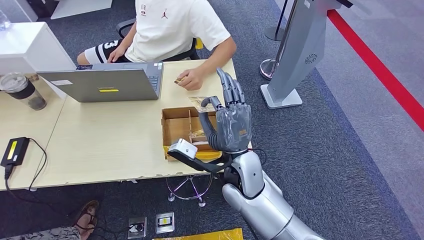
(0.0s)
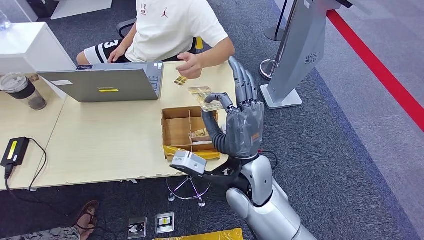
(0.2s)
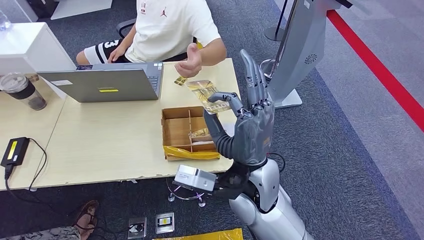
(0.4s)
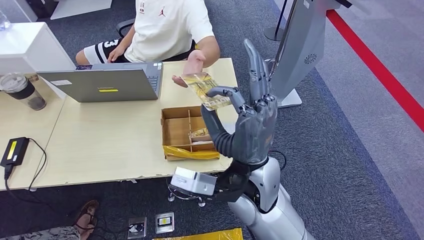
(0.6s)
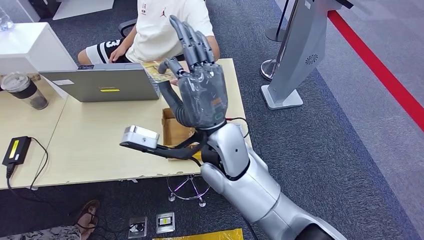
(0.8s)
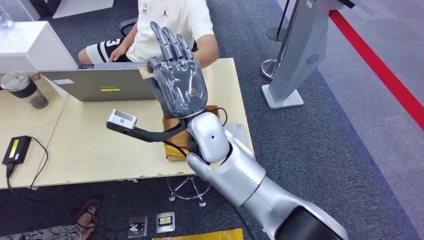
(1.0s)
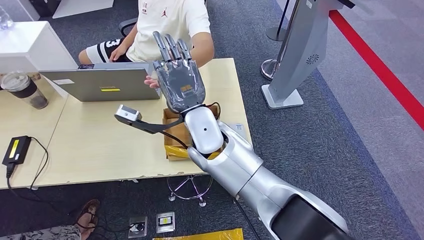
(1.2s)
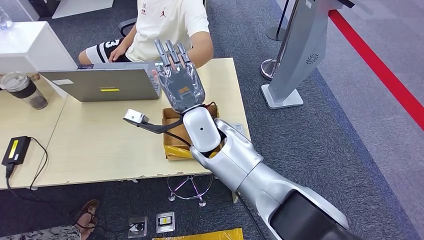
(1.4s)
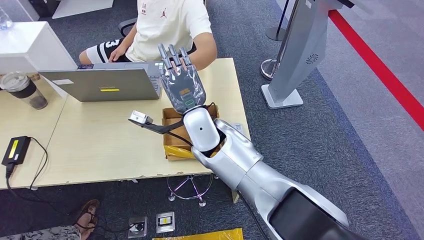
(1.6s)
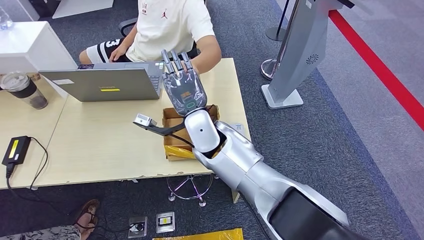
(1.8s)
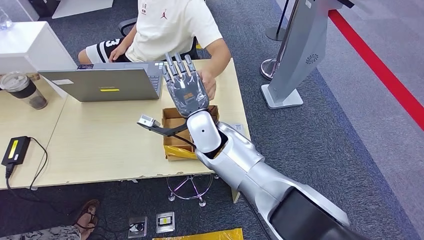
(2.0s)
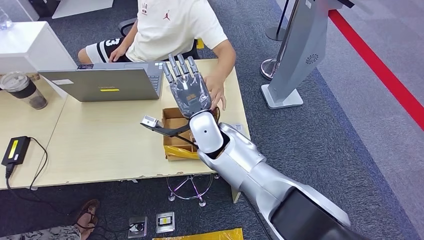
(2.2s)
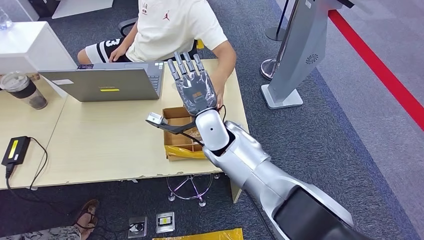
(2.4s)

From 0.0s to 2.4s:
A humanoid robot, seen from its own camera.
Step, from 0.6s to 2.4s: Hand the room key to the person.
From 1.2s to 2.4s: The right hand ends up some 5 cm from where it was.
